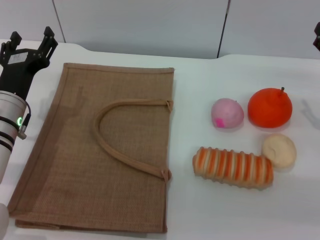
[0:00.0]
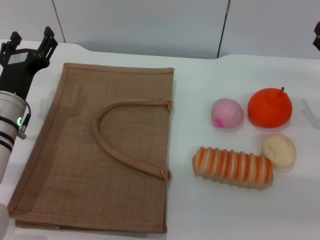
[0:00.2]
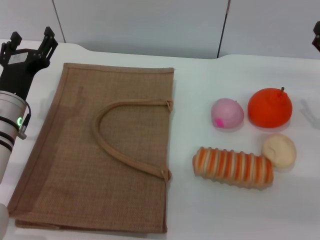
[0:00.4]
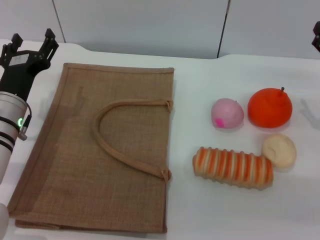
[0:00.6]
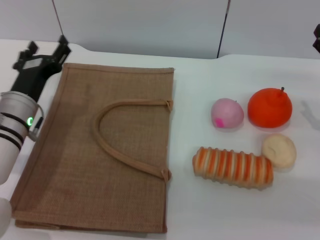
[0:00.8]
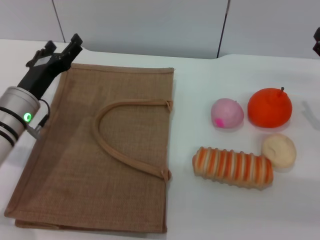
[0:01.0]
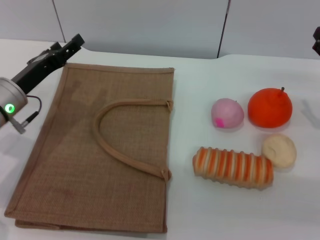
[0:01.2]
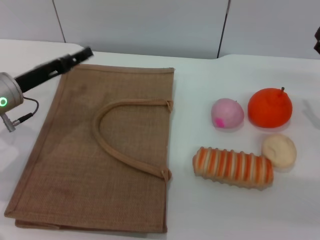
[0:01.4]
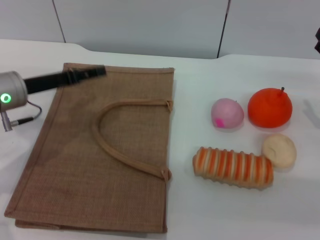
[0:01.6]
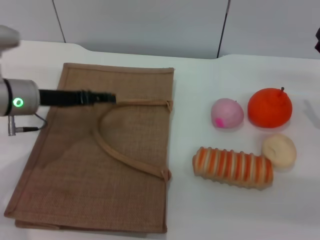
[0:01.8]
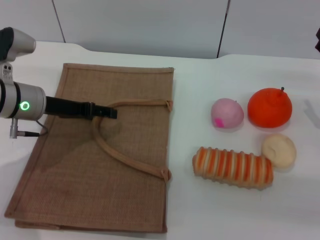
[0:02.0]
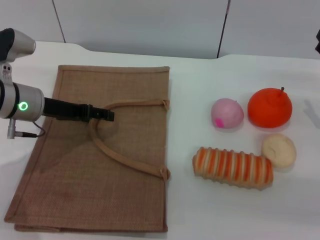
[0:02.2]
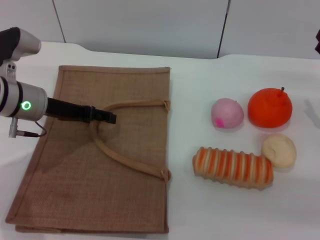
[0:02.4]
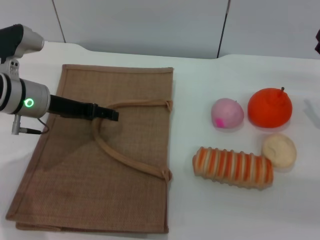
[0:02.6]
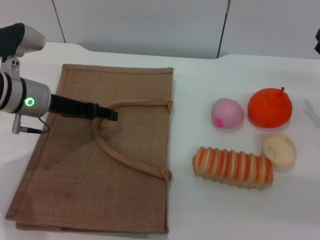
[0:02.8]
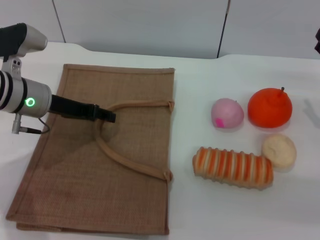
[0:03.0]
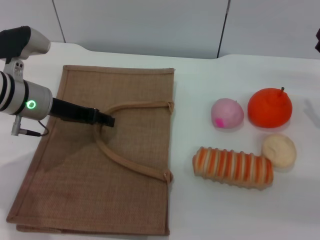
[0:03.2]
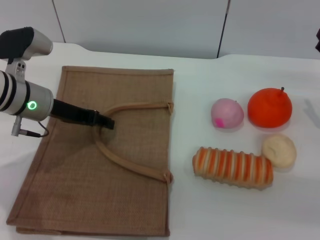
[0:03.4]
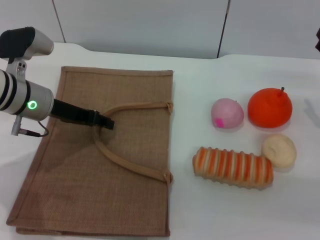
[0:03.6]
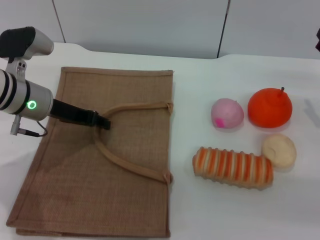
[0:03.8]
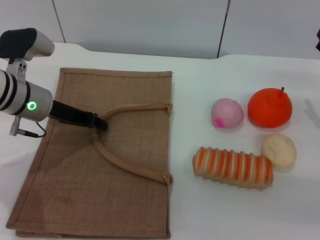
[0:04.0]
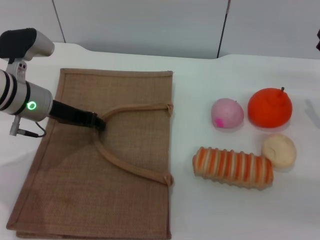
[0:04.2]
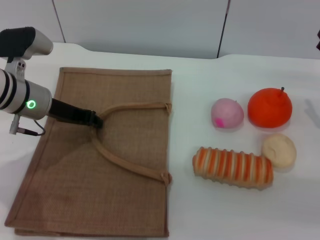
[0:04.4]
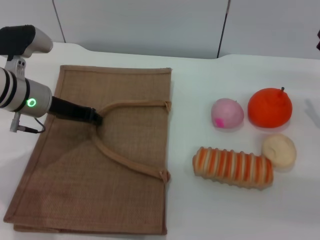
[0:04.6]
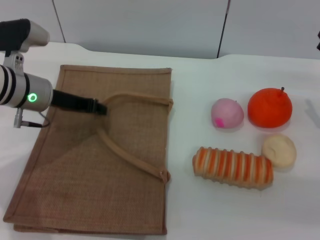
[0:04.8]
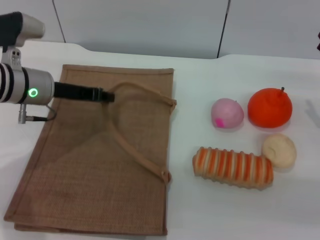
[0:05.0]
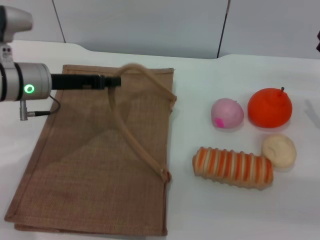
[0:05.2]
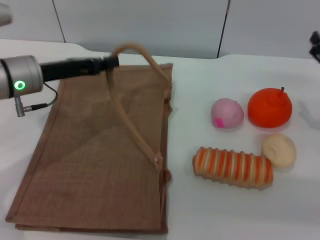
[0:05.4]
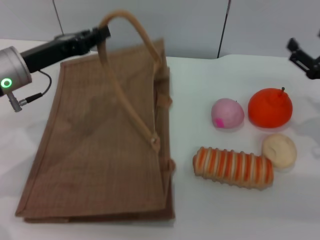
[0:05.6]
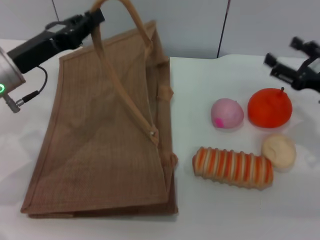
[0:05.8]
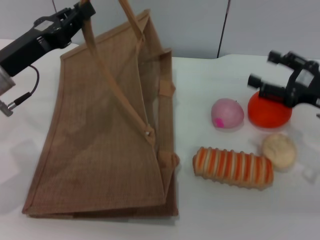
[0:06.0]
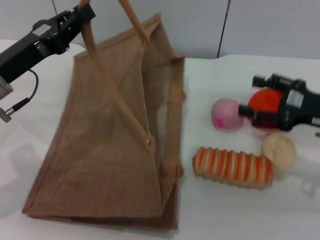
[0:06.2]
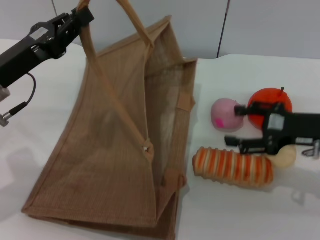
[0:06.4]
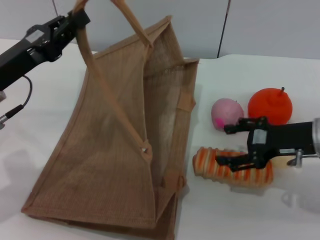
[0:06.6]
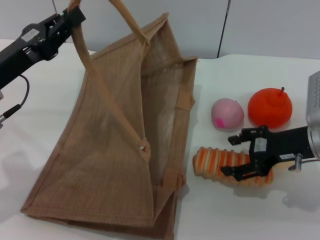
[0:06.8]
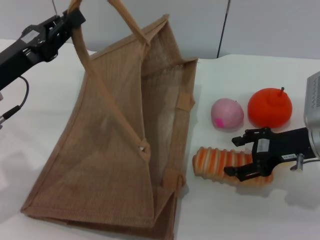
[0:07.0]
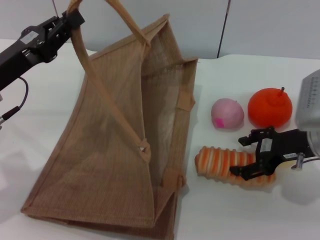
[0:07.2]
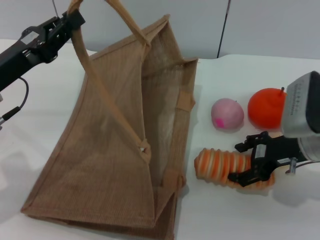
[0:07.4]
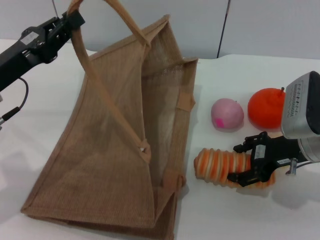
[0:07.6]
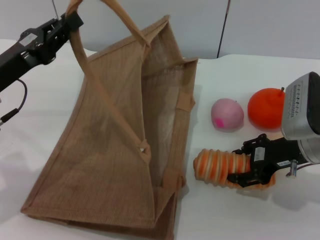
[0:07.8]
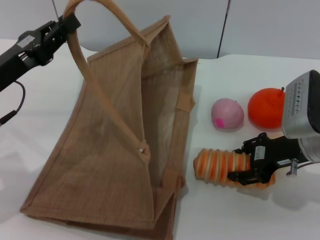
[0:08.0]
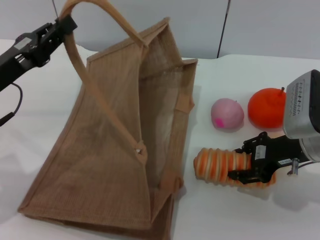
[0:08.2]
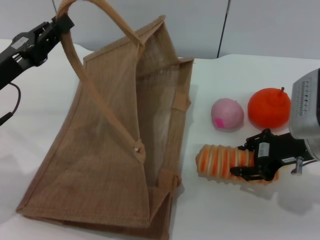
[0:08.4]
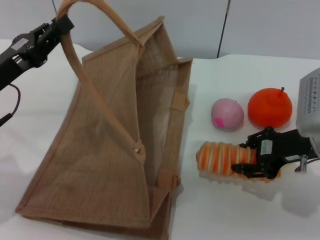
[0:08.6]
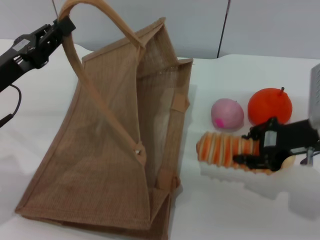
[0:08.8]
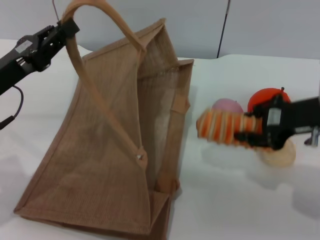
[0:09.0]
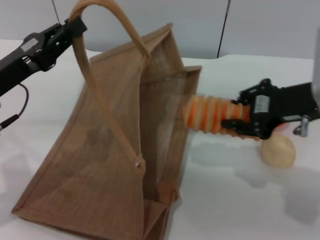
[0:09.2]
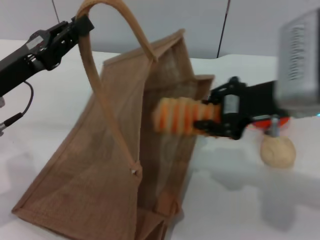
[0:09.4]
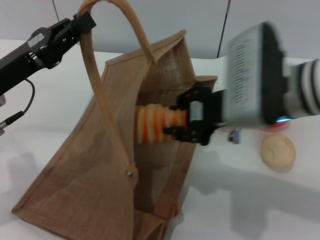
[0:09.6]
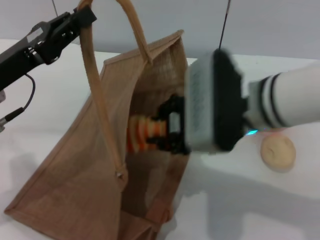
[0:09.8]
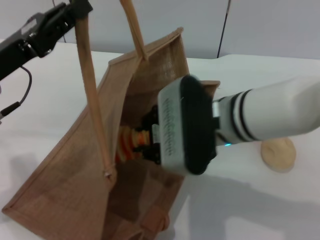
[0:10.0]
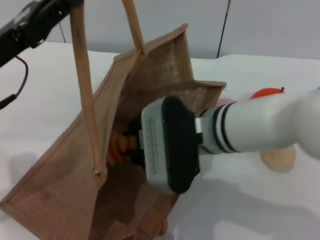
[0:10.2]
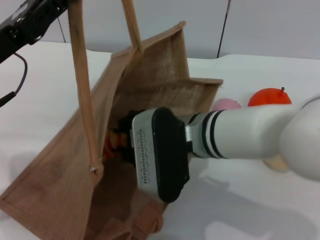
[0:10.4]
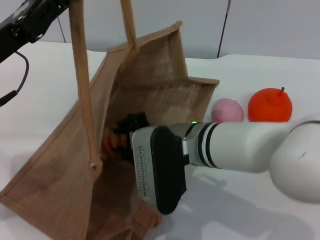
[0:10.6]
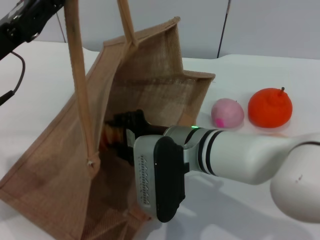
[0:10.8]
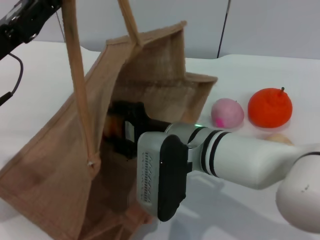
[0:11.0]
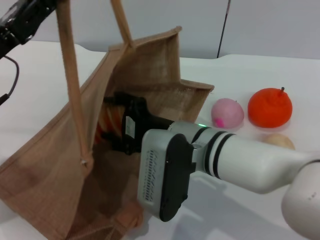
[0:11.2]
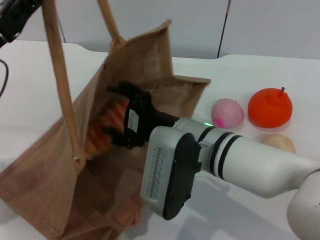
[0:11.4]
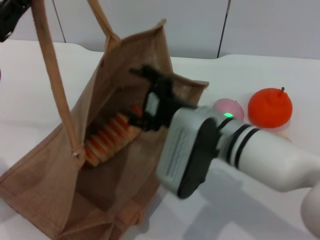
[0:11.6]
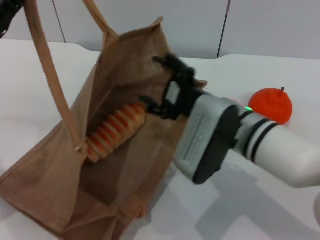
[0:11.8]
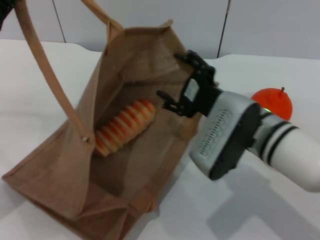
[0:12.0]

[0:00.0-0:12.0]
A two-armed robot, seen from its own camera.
Task of the whole recording: pick up the bread and egg yolk pastry from the table and place it in the brown handbag.
Step, 0:00.0 to 0:05.2: Lift the woven bag with the left gripper to open it.
Step, 0:05.4 to 0:09.0: Pick up the bread with the right gripper.
0:00.0 to 0:01.6: The left gripper ends up about 5 cm from where it was.
0:03.0 to 0:04.4: The left gripper closes.
0:04.4 to 0:06.0: The left gripper goes about 5 cm backward.
0:06.0 to 0:07.6: The right gripper shifts about 5 cm to the left.
0:07.6 to 0:09.0: The right gripper heads upward, covering approximately 5 cm, and closes its fingers.
0:09.0 to 0:10.4: The right gripper travels to the left by about 20 cm.
0:10.4 to 0:12.0: The right gripper heads to the right, covering approximately 10 cm, and opens its fingers. Meanwhile the left gripper ends up some 5 cm from where it was.

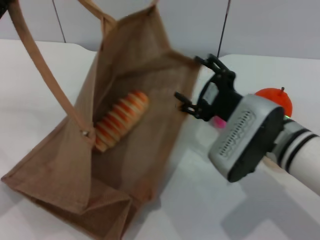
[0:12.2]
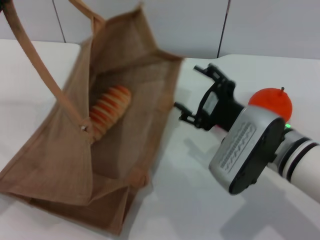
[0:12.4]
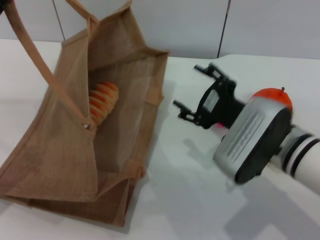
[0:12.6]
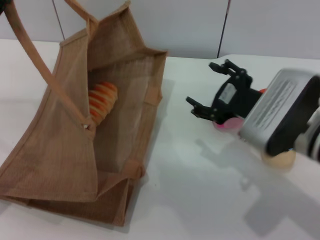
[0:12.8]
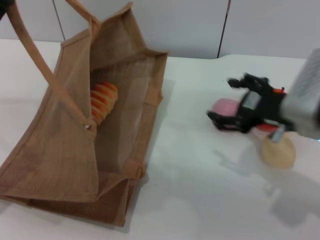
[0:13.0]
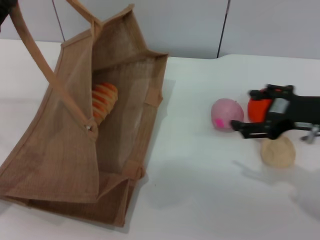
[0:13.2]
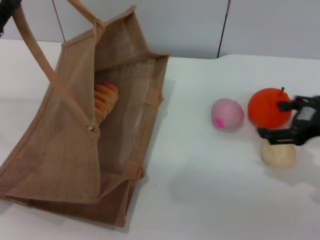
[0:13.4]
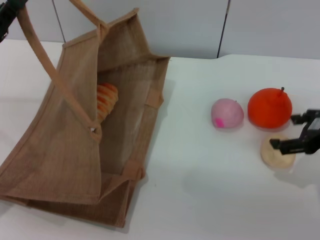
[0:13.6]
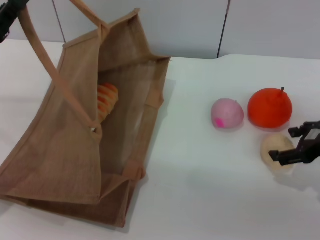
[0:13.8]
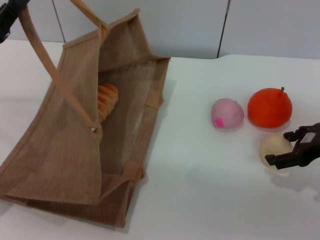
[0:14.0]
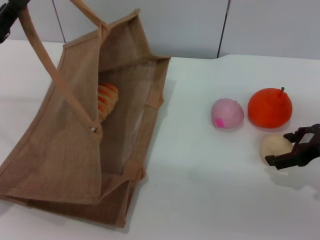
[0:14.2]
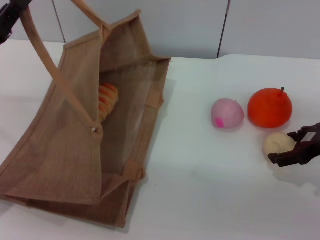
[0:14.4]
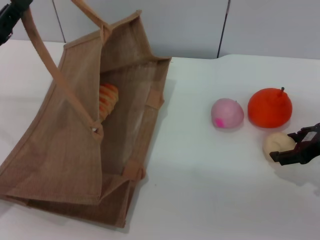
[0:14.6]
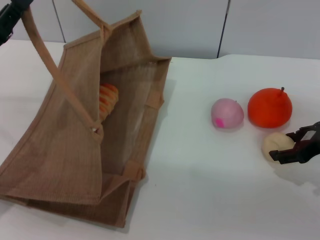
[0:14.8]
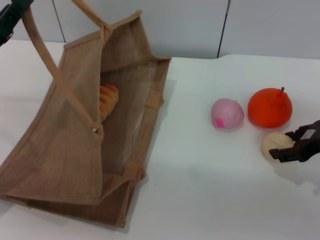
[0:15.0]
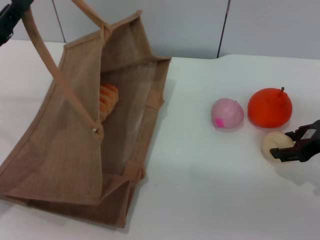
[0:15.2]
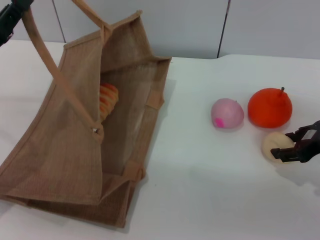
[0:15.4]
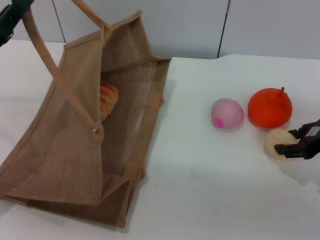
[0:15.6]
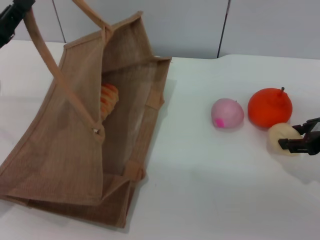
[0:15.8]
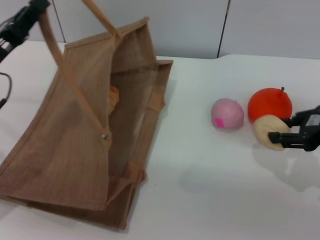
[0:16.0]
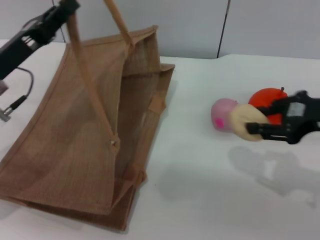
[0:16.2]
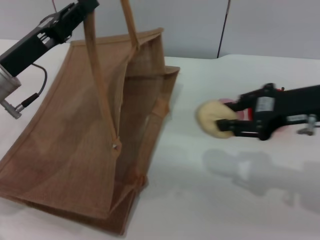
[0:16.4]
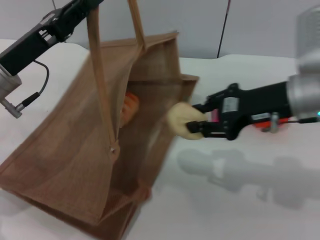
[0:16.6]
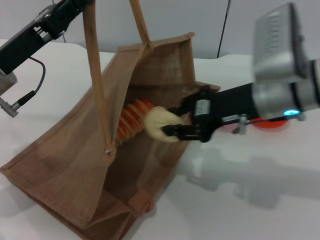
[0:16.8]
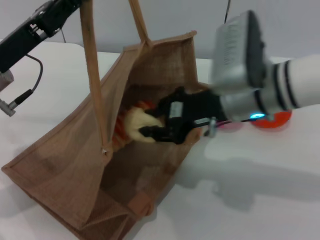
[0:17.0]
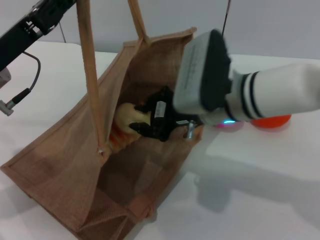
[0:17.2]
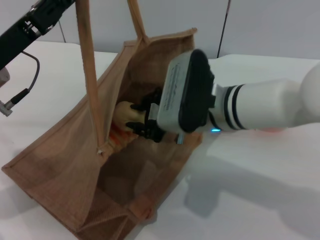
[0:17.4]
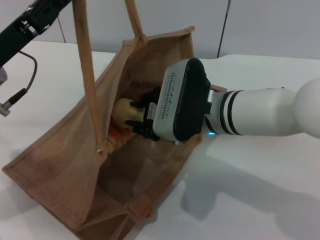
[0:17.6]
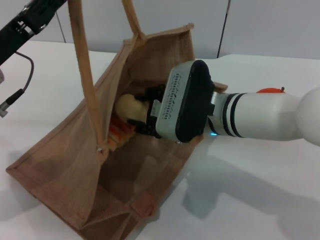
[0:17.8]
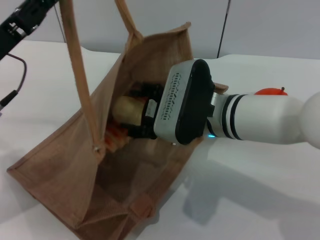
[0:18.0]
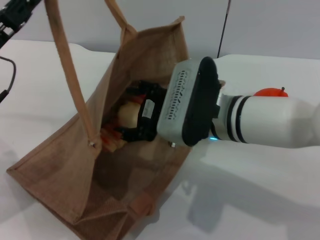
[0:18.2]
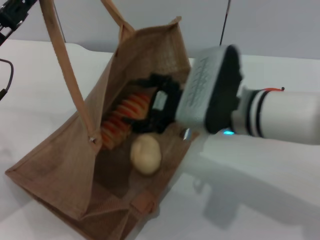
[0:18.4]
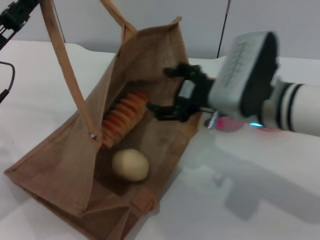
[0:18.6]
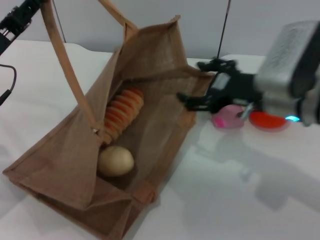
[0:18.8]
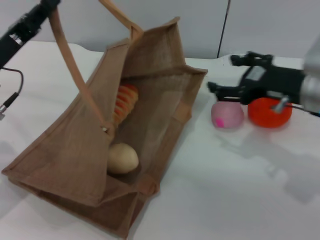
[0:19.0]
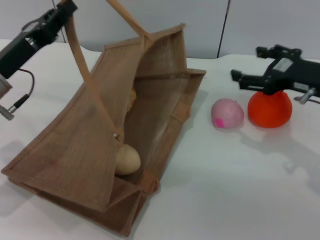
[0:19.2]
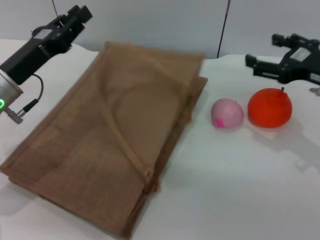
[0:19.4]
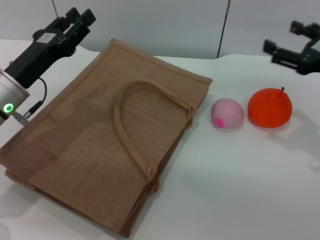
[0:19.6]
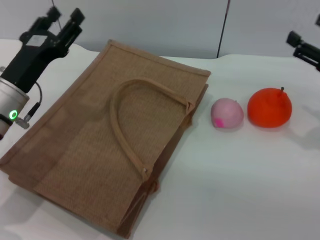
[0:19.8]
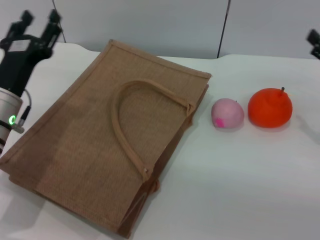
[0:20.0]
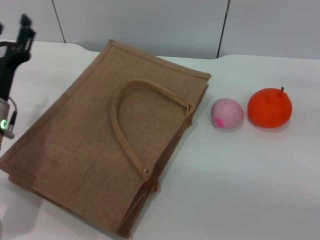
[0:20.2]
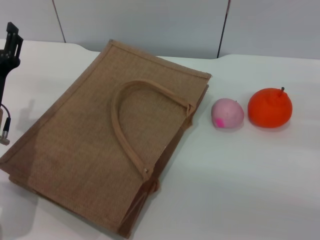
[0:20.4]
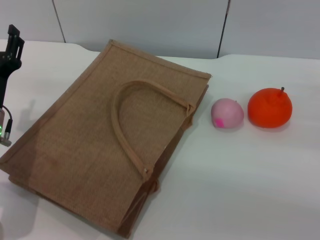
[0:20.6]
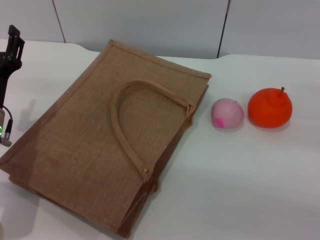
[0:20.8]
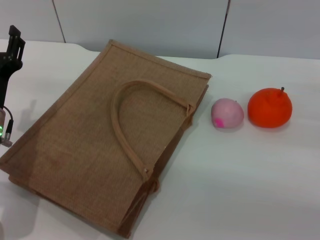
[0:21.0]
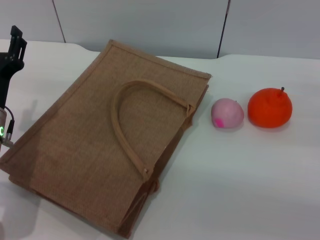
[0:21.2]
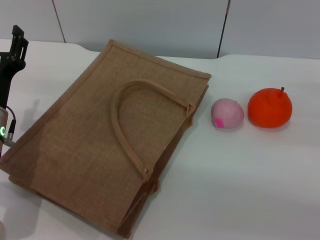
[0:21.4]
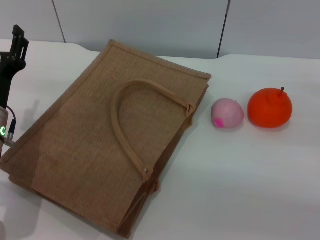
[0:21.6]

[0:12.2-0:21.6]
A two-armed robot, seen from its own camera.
Task of the whole recording: pick up the bread and egg yolk pastry from the table and place it in the brown handbag.
Step, 0:12.6 to 0:16.0: Pick up the egg yolk pastry with the right gripper.
Step, 0:16.4 to 0:19.0: Place the egg yolk pastry into the woven bag with the right gripper.
Step, 0:19.2 to 0:19.8: Lower the woven bag with the left gripper to close it.
0:12.2 to 0:13.8: The right gripper travels to the right by approximately 15 cm.
0:13.8 to 0:15.4: The right gripper closes its fingers.
0:15.4 to 0:17.0: The right gripper shifts about 20 cm to the left, and closes up. The left gripper goes roughly 5 cm to the right.
0:17.0 to 0:18.4: The right gripper opens.
0:18.4 to 0:20.0: The left gripper goes approximately 5 cm downward, and opens its fingers; the right gripper shifts roughly 25 cm to the right.
